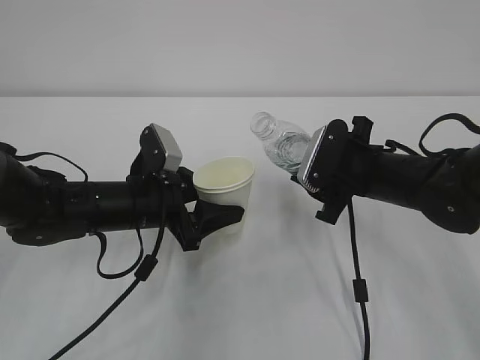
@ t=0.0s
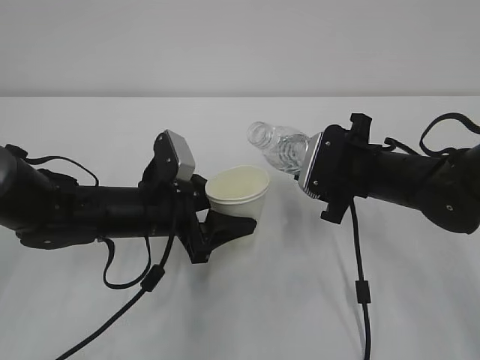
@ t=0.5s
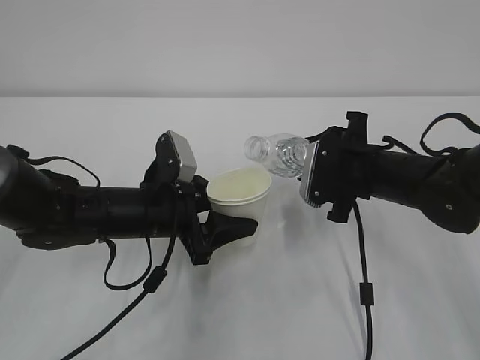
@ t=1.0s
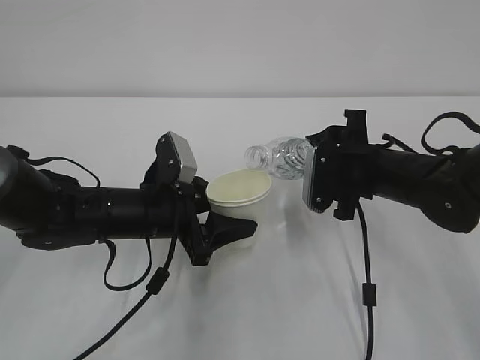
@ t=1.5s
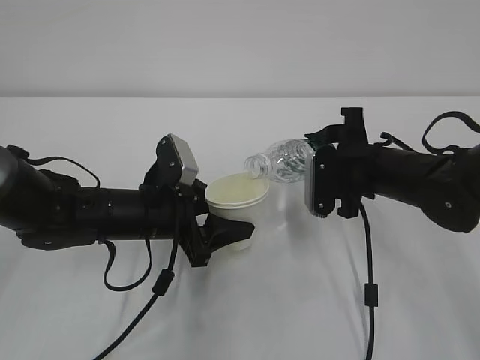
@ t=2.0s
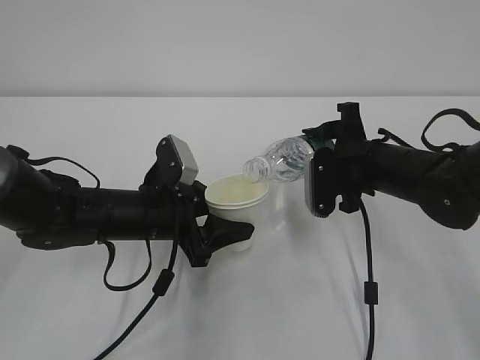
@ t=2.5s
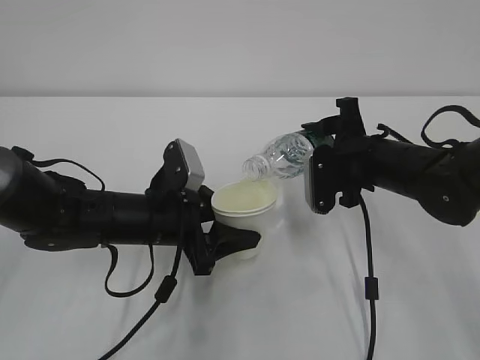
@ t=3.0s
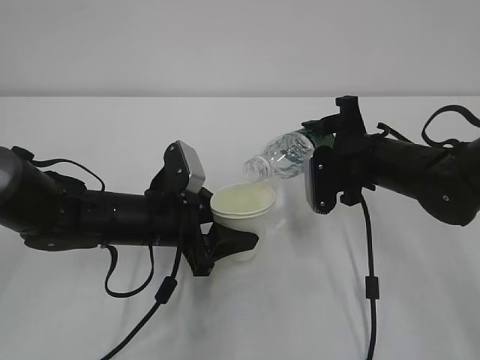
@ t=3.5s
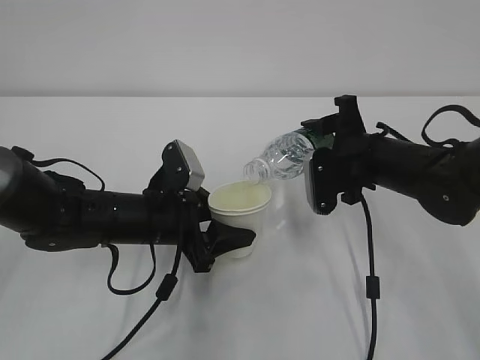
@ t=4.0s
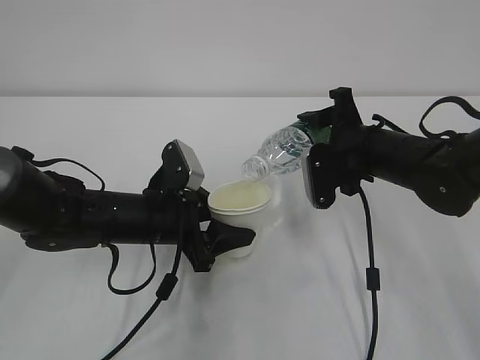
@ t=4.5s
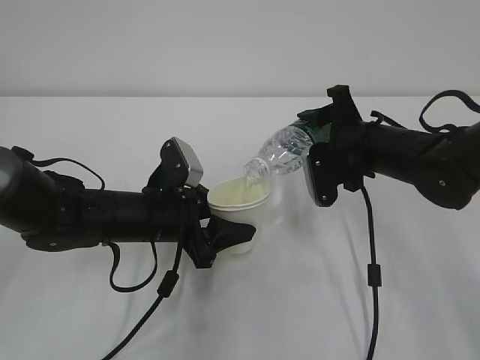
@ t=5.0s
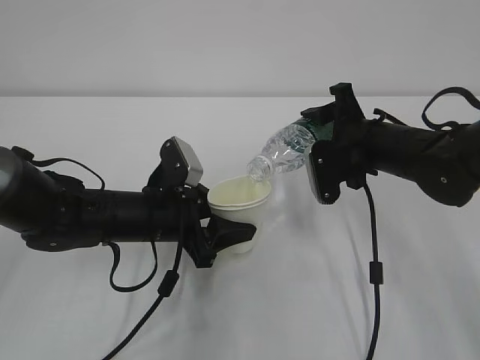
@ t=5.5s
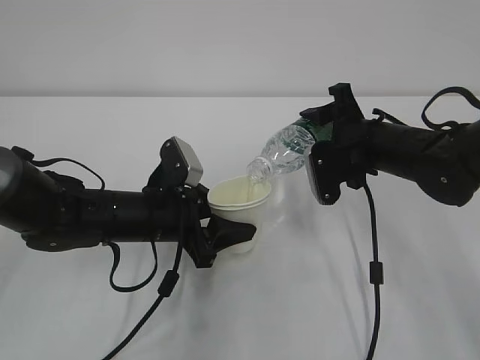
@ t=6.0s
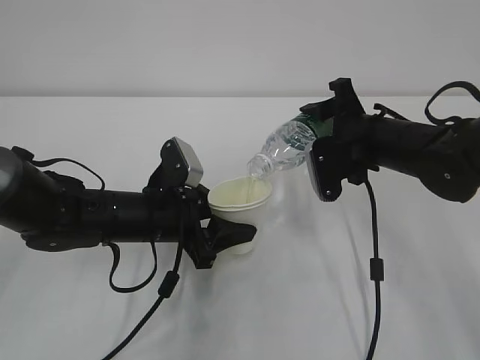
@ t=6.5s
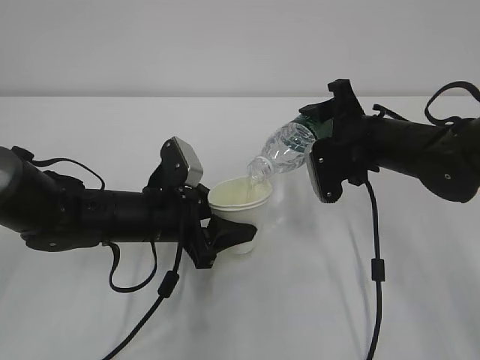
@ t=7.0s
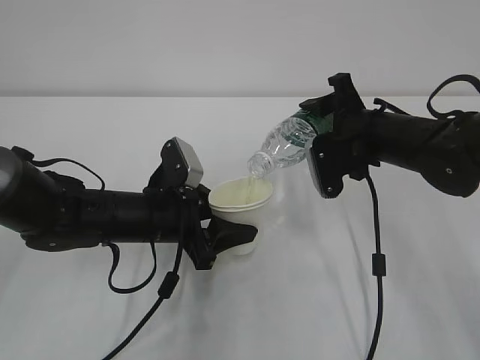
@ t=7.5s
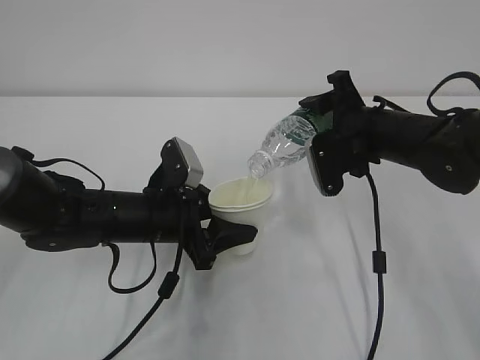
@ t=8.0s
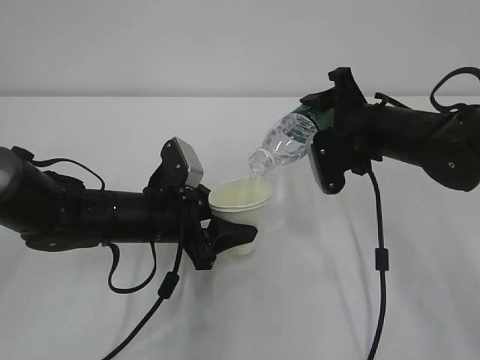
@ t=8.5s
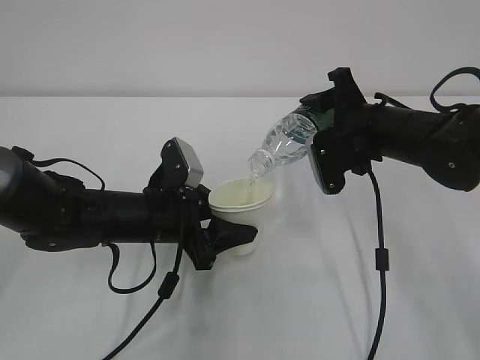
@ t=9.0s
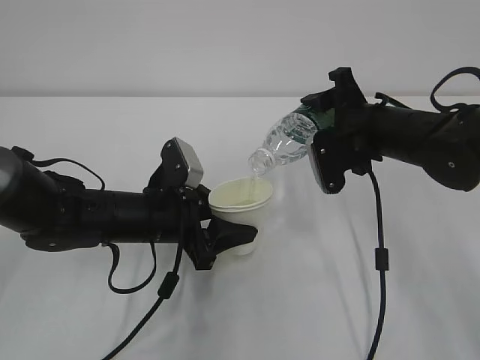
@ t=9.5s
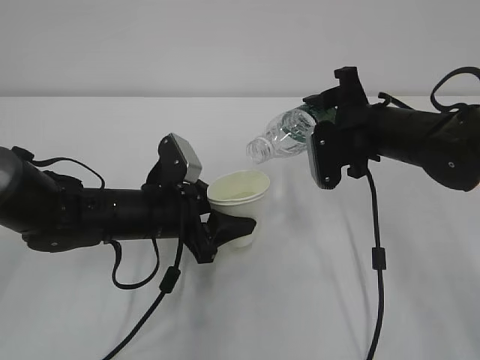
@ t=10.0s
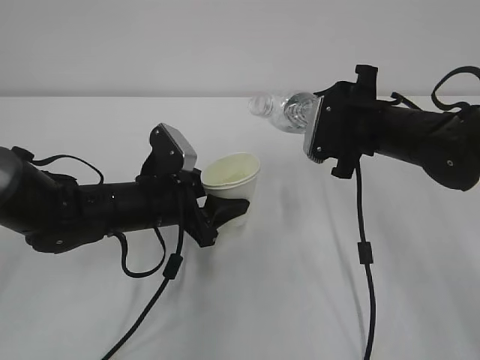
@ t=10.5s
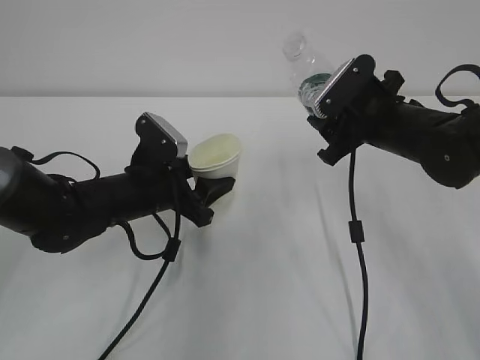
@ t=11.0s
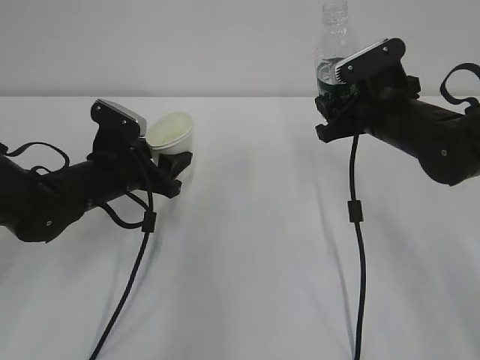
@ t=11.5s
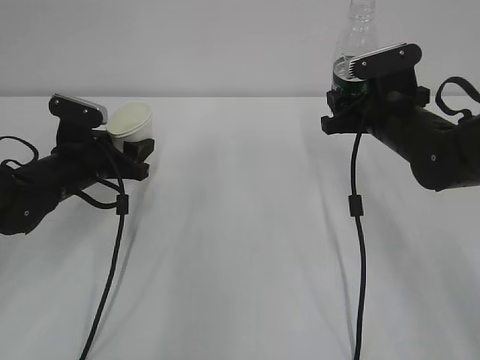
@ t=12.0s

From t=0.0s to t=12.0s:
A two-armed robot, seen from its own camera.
From t=2.0s to t=6.0s: The grippers move only a little.
From t=6.0s to t=10.0s: The grippers stay close to where they were, moving slightly.
From t=10.0s to t=12.0s: The left gripper travels to the left and forward by some 15 cm.

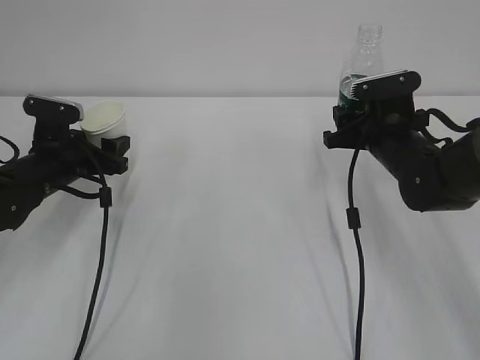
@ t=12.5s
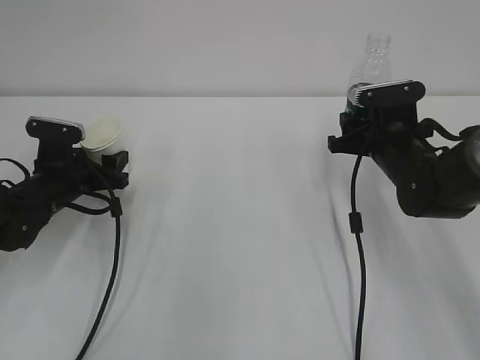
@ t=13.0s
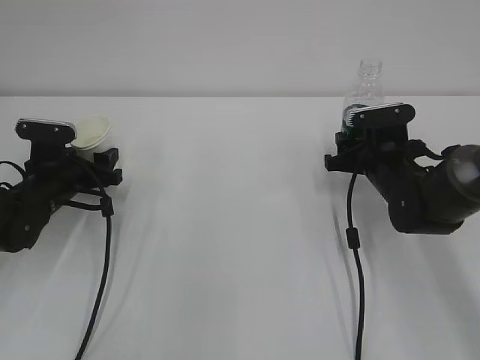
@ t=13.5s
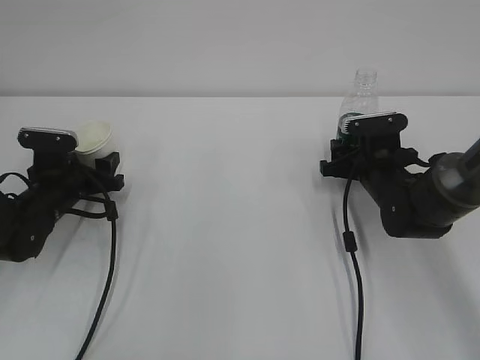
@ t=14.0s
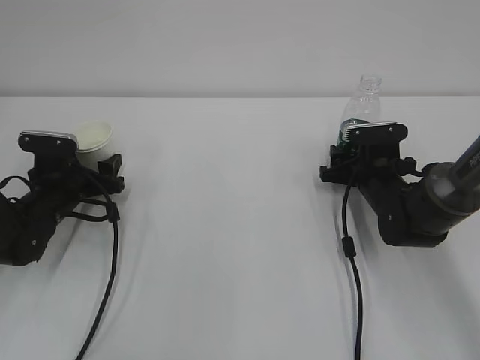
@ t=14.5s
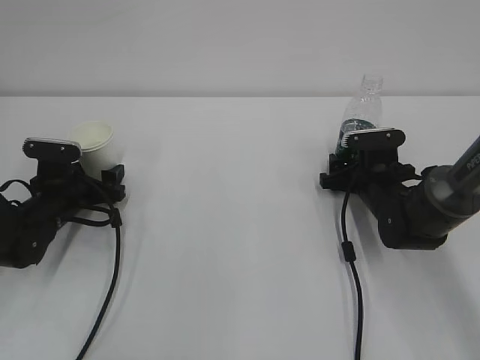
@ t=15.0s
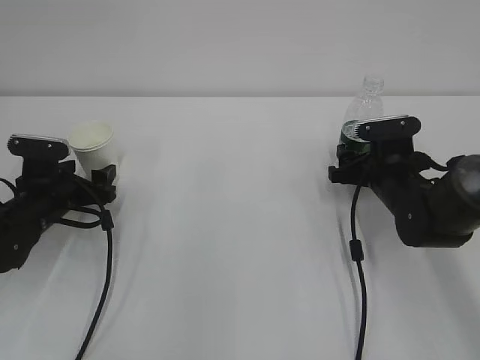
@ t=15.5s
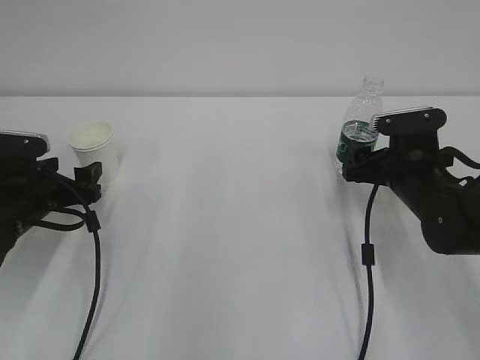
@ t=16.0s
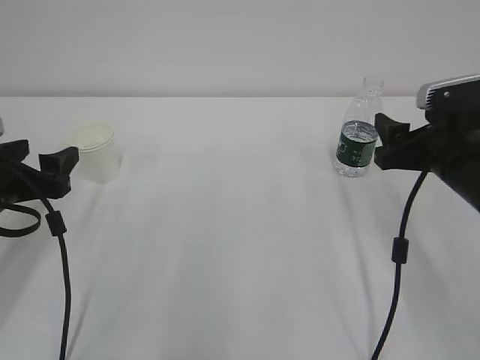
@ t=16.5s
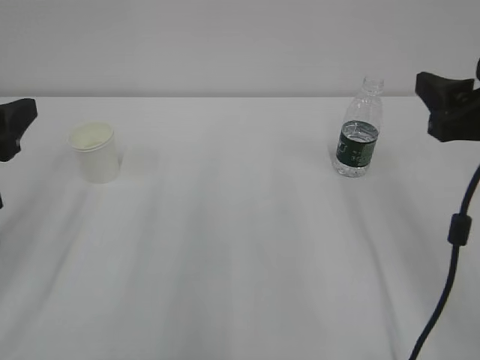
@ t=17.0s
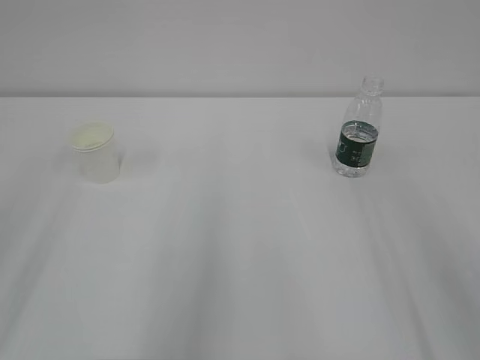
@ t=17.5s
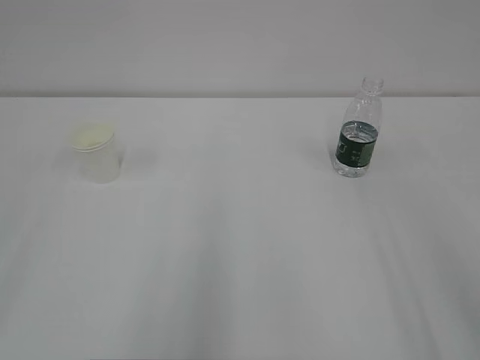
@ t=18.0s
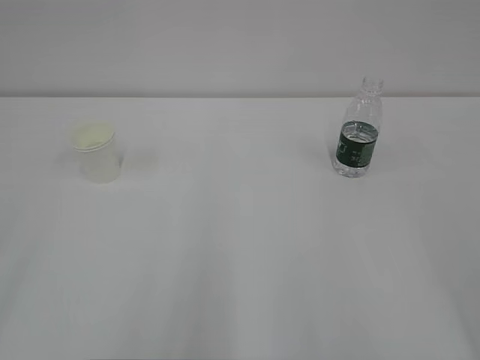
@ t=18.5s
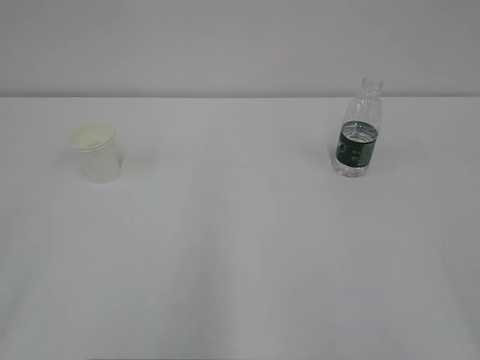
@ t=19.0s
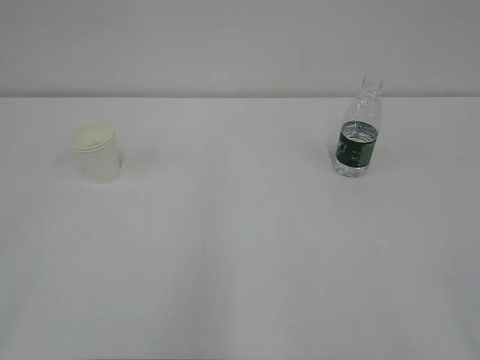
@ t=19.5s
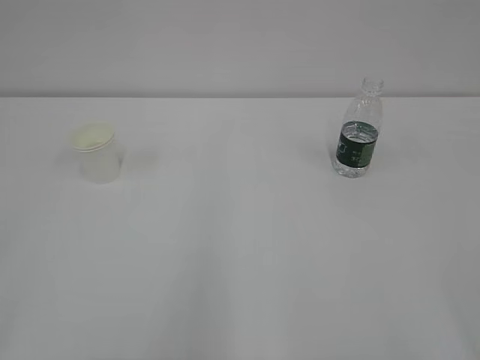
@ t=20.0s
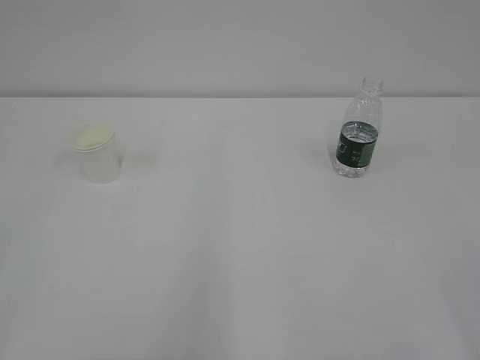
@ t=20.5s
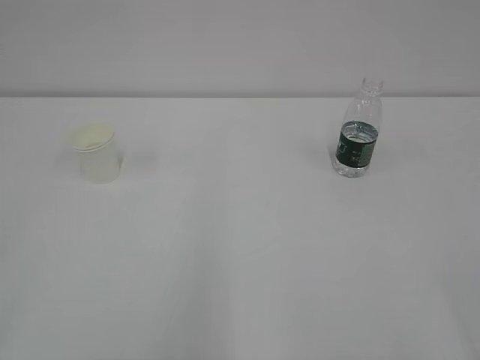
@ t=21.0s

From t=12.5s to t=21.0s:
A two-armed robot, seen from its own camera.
From t=12.5s to t=14.5s: Both grippers travel together downward, some 5 cm. The right gripper opens up.
From t=14.5s to t=16.5s: The grippers both shift upward and backward by about 15 cm.
From t=16.5s to t=19.0s: The right gripper shifts approximately 30 cm backward, while the left gripper is displaced backward and upward by roughly 30 cm.
